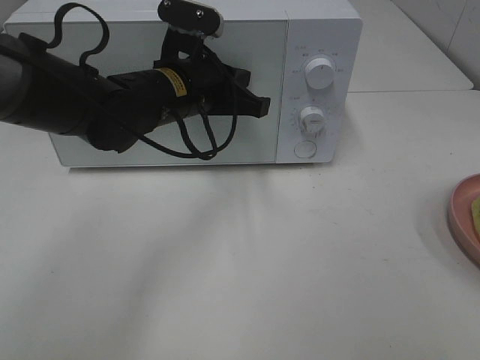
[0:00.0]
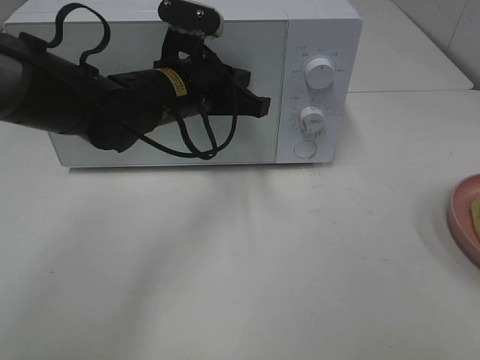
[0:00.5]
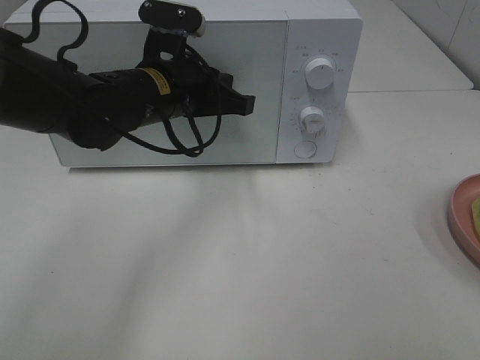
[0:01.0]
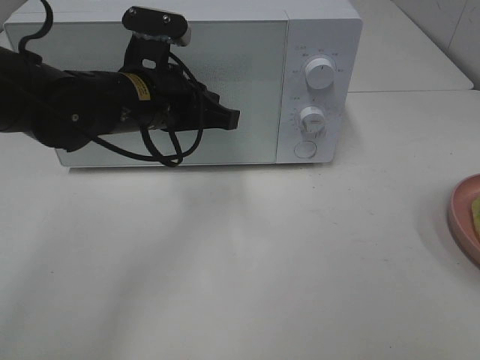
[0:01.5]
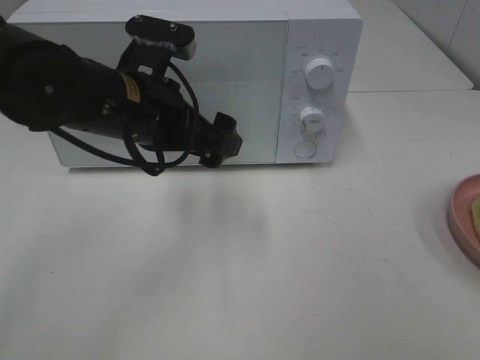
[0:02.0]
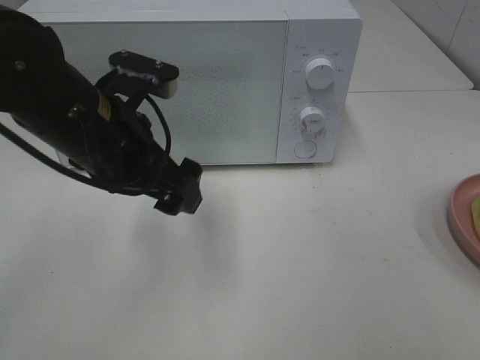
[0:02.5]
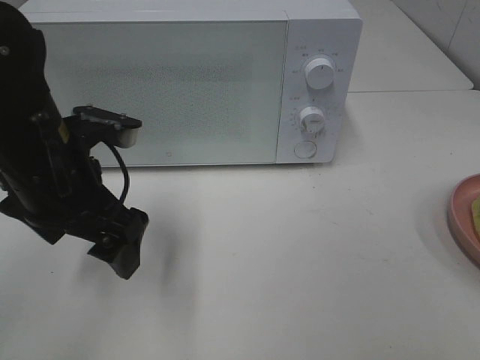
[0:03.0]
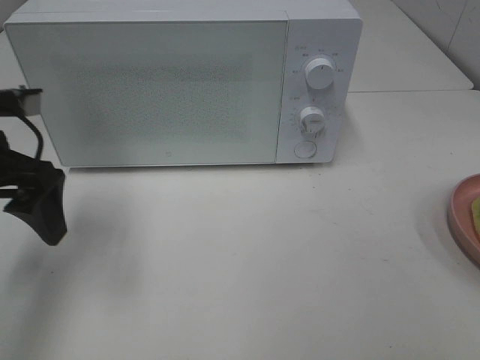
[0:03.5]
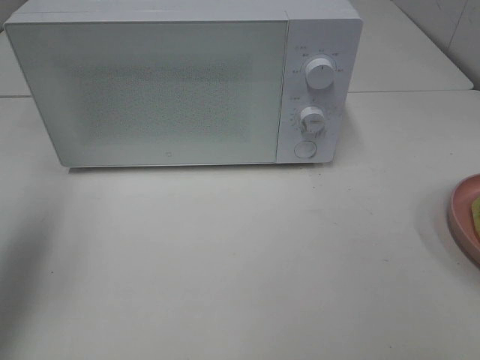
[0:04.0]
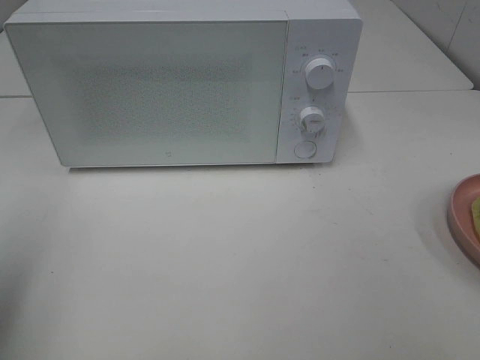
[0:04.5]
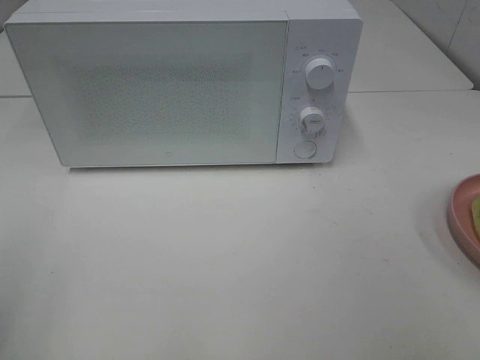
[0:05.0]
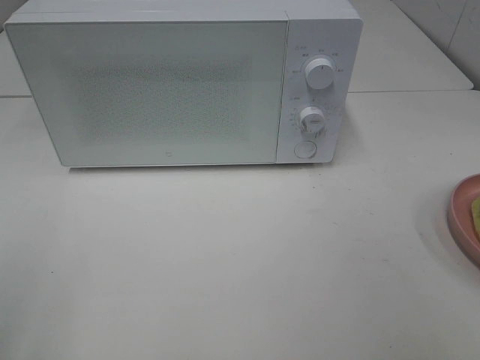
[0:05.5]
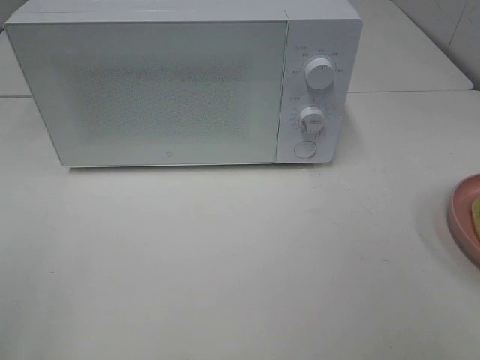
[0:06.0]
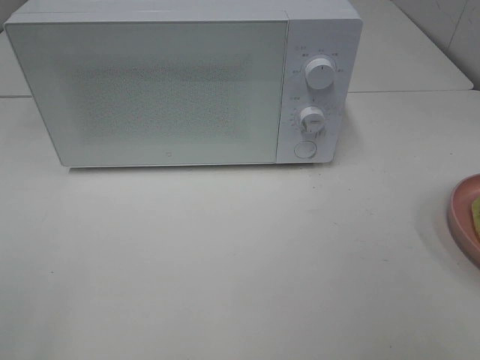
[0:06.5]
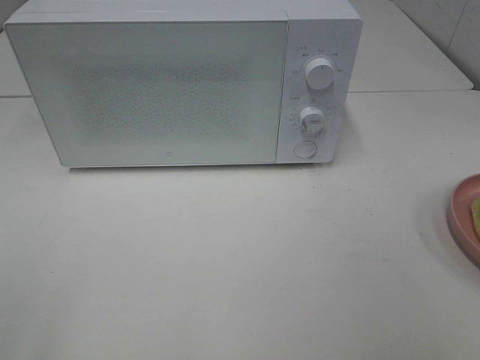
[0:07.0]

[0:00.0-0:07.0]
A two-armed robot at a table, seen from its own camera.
Task of the whole recording: Heat Sandwich.
0:00.0 to 0:02.0: The left gripper goes approximately 5 cm backward, and opens.
0:02.0 to 0:03.5: The left gripper heads to the left, covering about 15 cm.
0:03.5 to 0:05.0: The left gripper is displaced backward and to the left by about 20 cm.

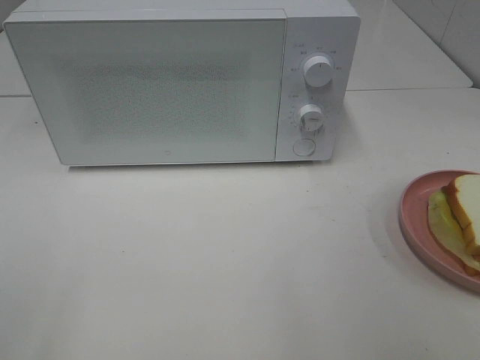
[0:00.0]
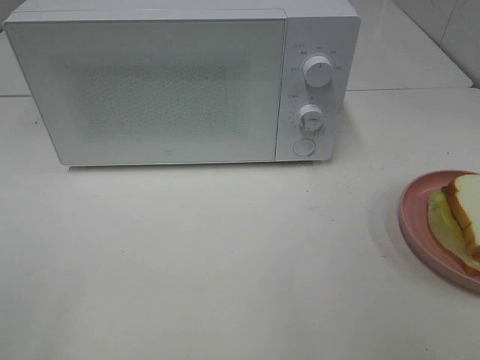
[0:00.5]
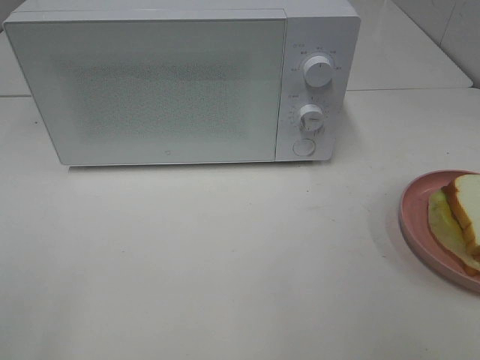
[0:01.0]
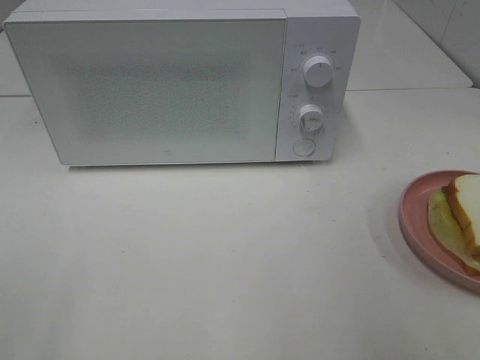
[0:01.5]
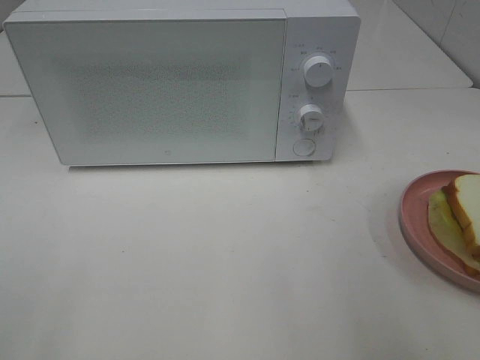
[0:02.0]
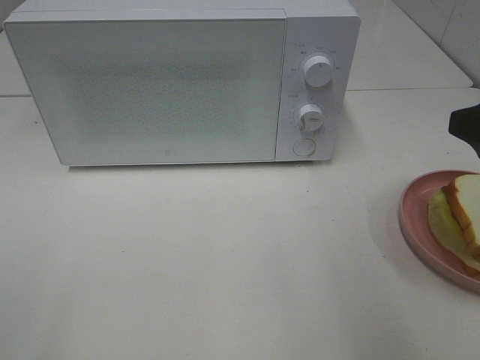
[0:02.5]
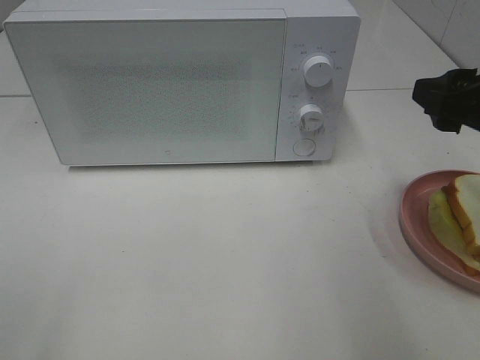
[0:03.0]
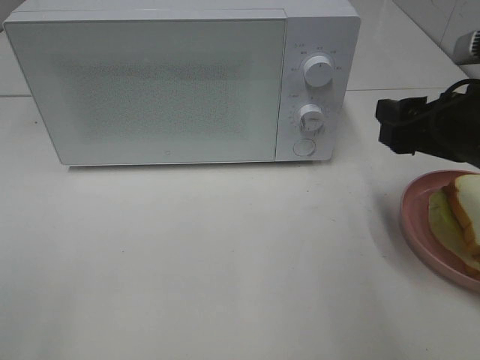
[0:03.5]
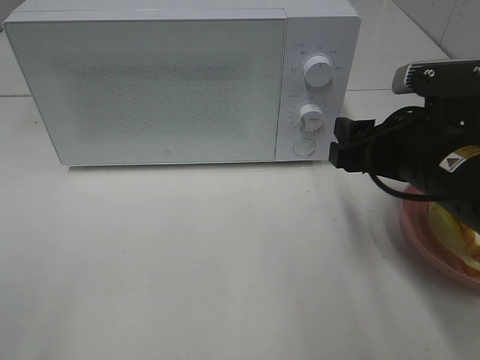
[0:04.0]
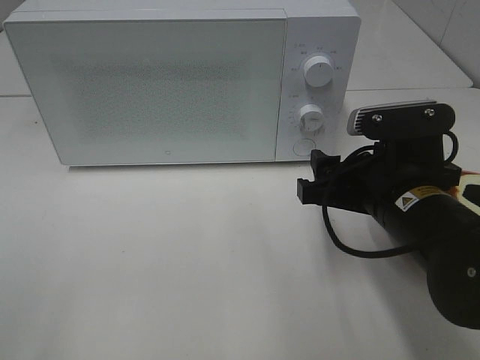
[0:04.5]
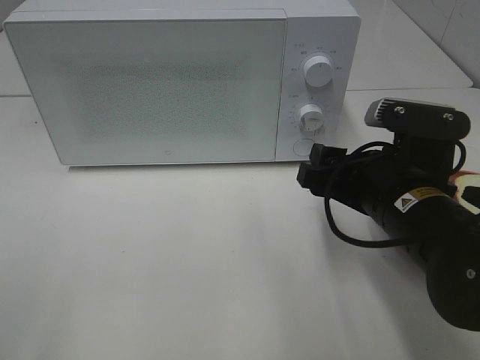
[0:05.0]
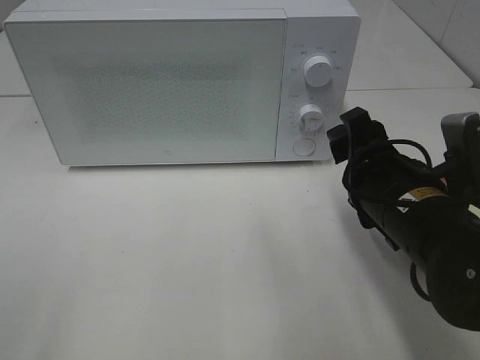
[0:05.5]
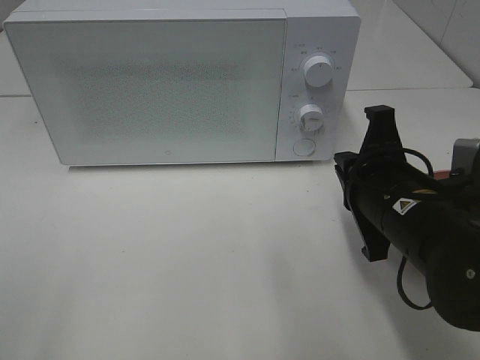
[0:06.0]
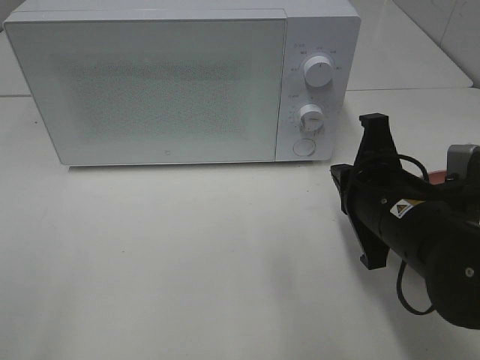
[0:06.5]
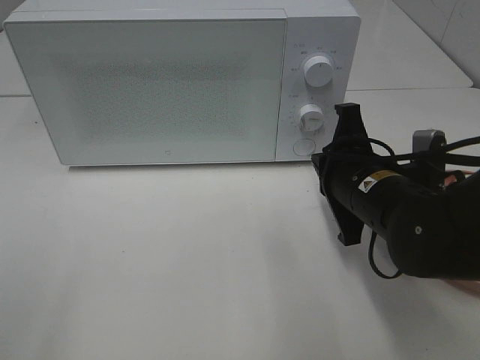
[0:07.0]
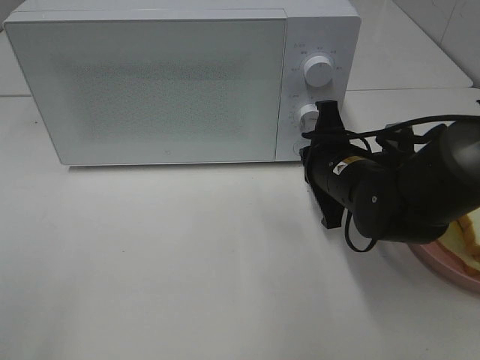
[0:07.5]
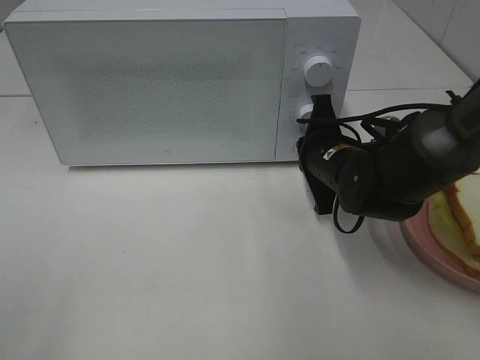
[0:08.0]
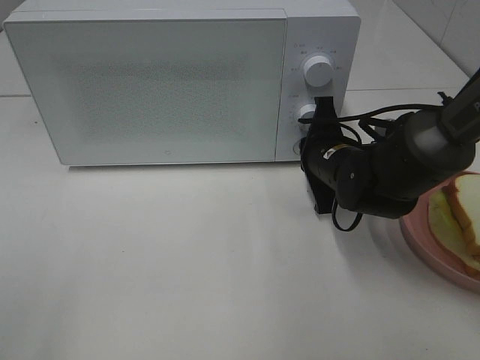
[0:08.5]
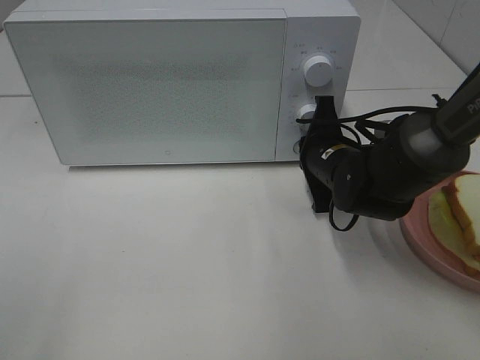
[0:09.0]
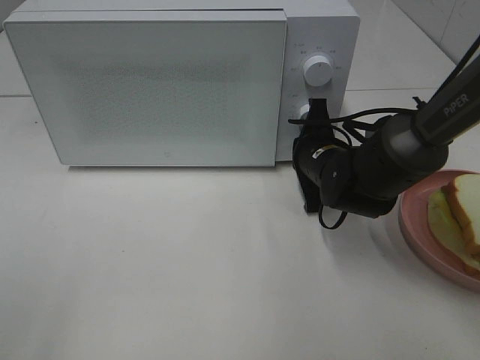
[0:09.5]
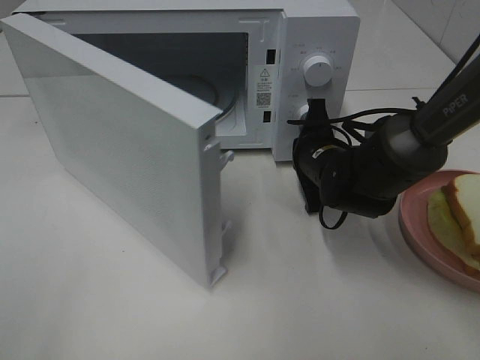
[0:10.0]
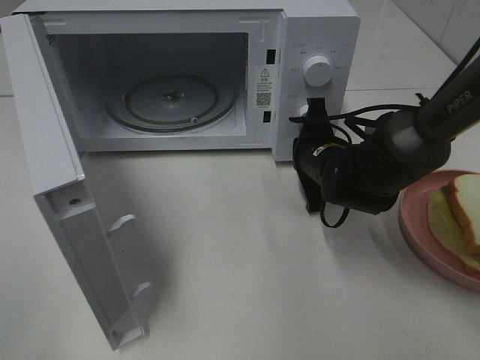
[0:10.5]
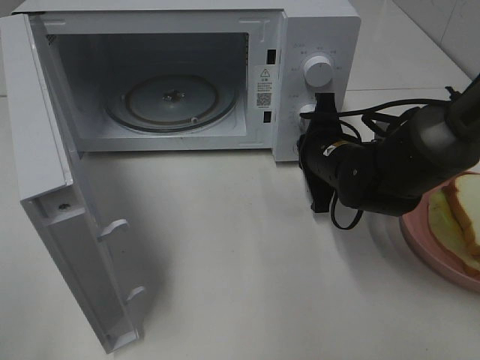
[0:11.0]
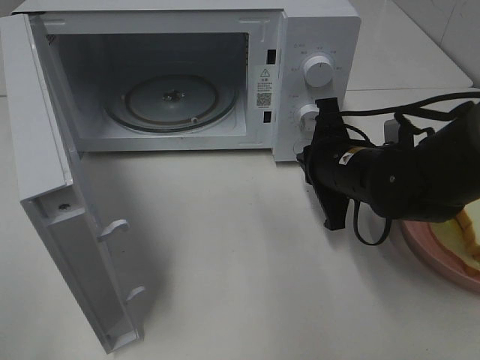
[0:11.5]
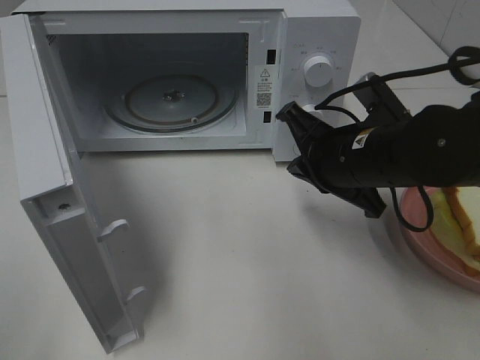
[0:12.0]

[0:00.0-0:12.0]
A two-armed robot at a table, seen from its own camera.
Task of the whole recording: Heat Sandwich.
Step, 0:00.0 to 0:11.0: Right hand: press the switch.
0:02.0 to 0:04.0: The right gripper travels forward, downward and to the left by roughly 15 cm.
0:04.0 to 0:06.0: The right gripper closes its fingers.
0:06.0 to 0:08.0: The right gripper moves forward and downward, approximately 15 cm.
0:10.0 to 0:12.0: The right gripper goes roughly 10 cm backward and upward.

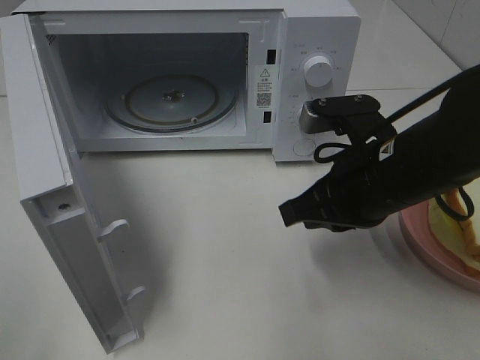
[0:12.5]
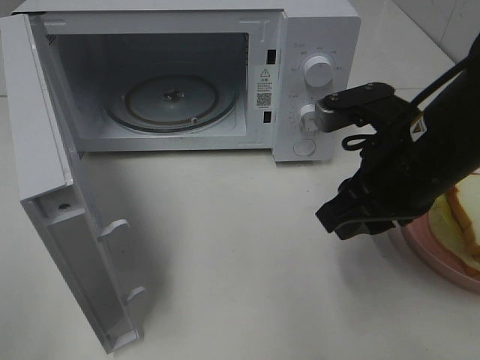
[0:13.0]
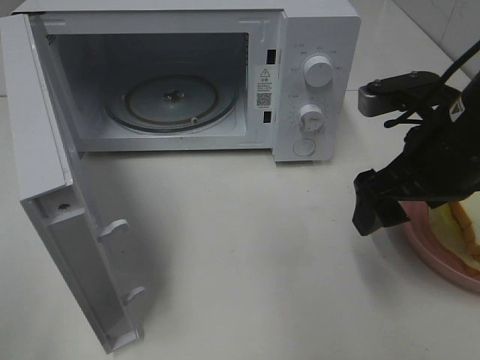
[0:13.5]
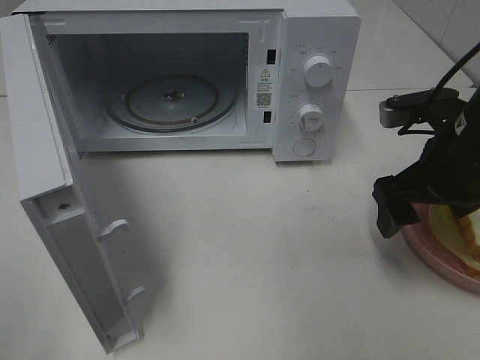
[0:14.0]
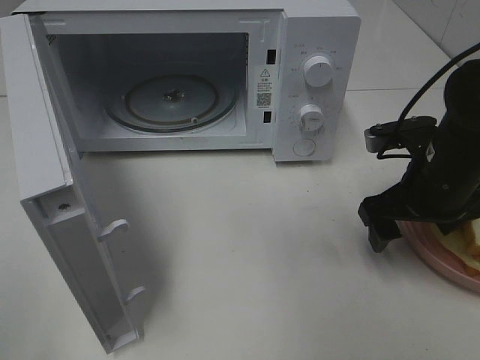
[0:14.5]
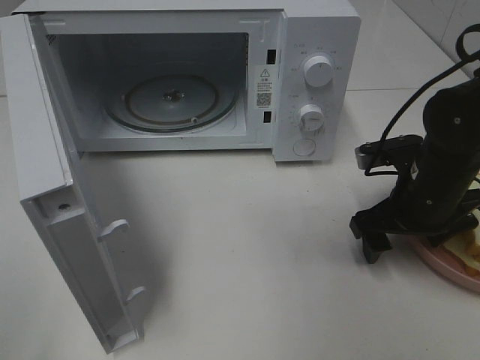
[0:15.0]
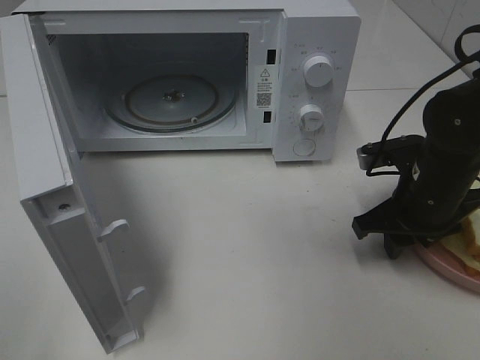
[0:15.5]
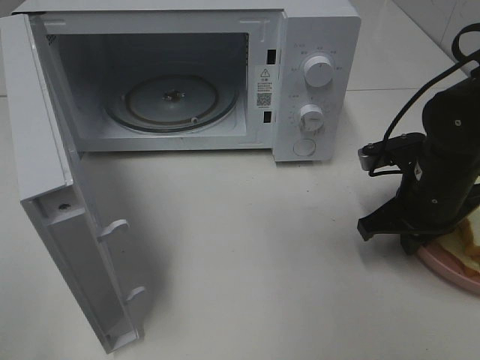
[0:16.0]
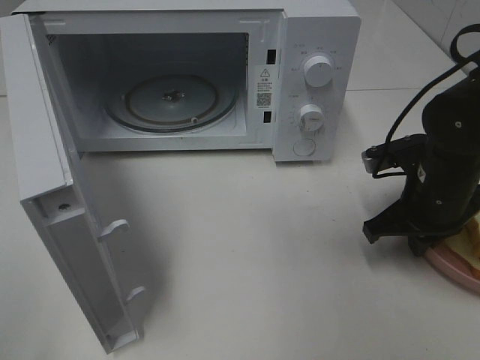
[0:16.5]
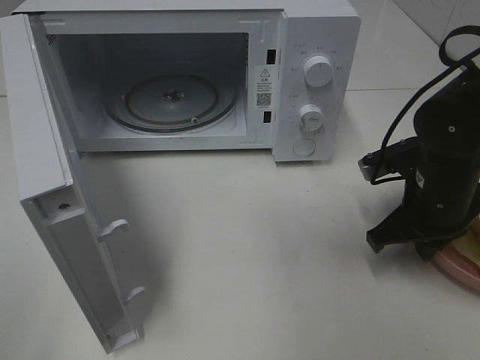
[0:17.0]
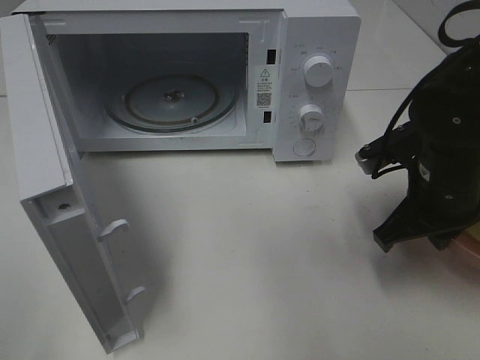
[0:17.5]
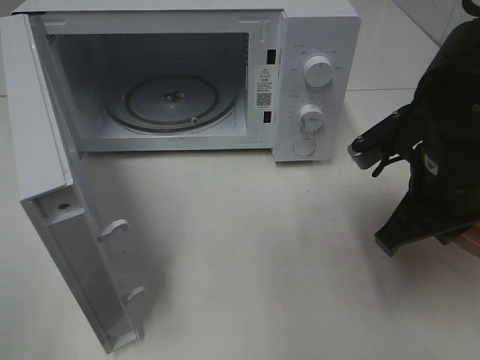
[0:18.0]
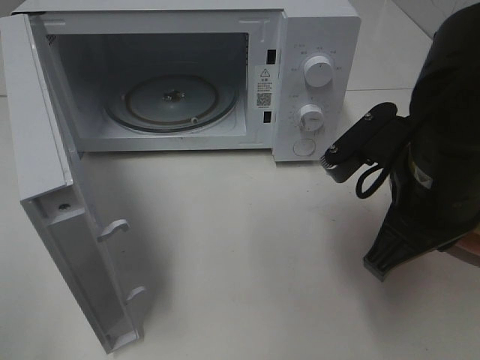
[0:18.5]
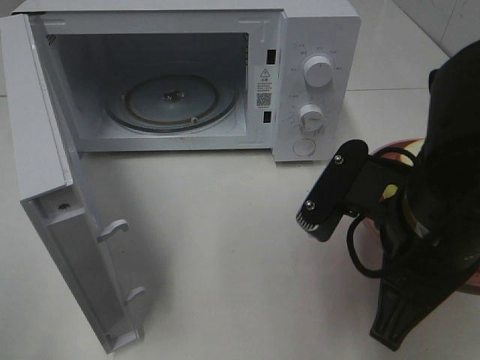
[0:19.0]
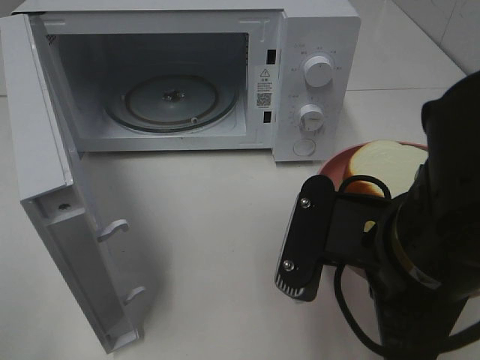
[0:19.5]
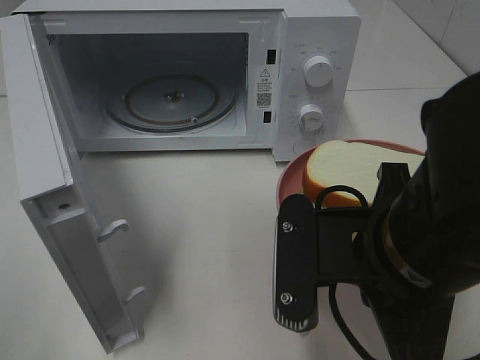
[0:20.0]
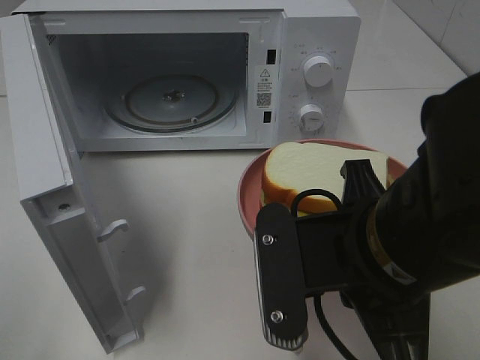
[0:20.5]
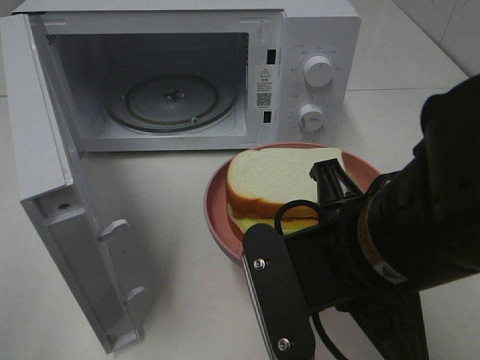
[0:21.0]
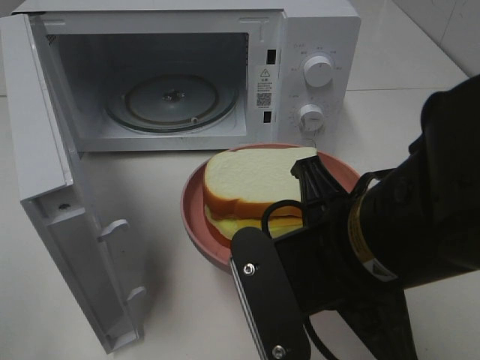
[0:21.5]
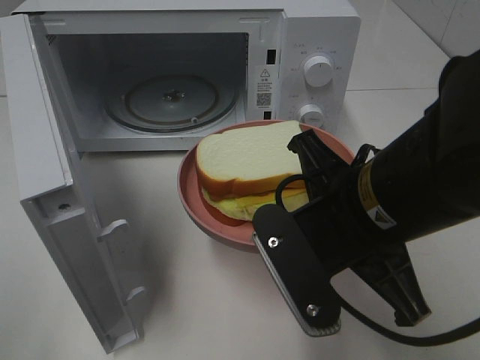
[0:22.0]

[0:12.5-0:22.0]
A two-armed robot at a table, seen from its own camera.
Task of the whole recording: Heat Sandwich.
Step, 0:12.5 to 0:16.5: Right hand: grab the plate with the sandwich.
0:12.5 to 0:14.5: The right gripper heads to the right, covering roughly 10 cm, and opens up.
0:14.5 to 0:16.5: The right gripper closes.
0:16.5 to 0:18.0: The right gripper heads upward and backward, covering about 10 cm.
0:18.0 to 0:20.0: The right gripper travels backward and to the left by about 15 cm.
